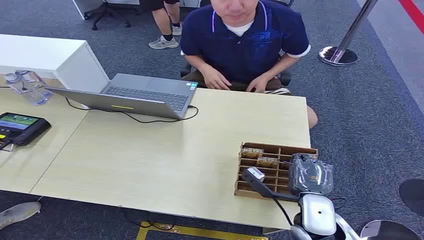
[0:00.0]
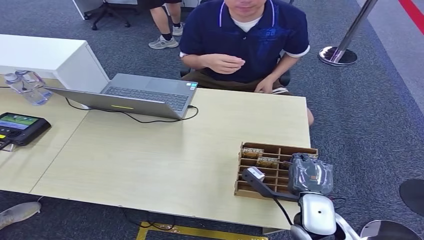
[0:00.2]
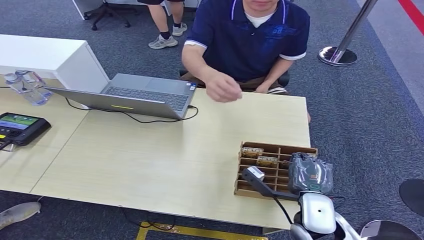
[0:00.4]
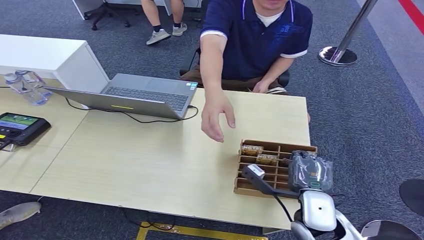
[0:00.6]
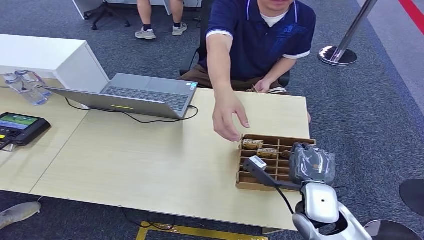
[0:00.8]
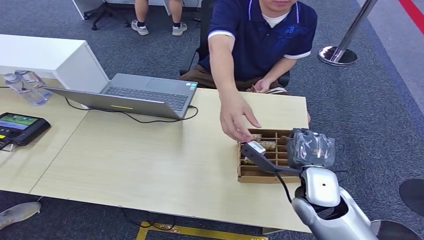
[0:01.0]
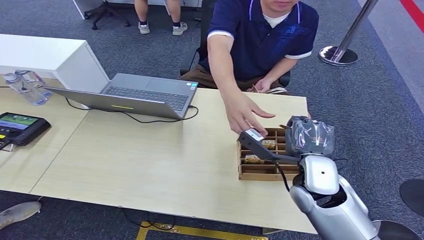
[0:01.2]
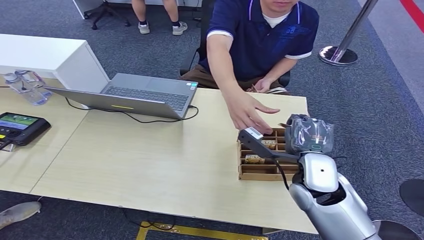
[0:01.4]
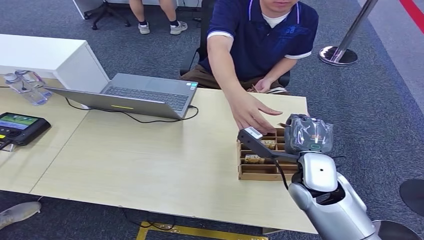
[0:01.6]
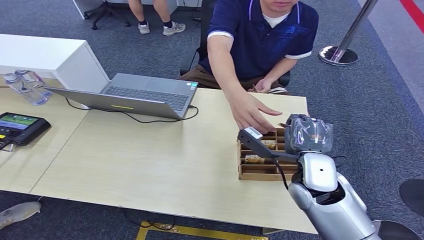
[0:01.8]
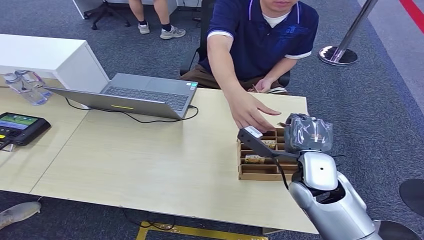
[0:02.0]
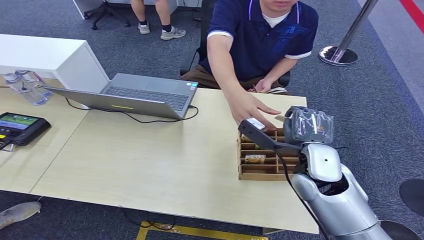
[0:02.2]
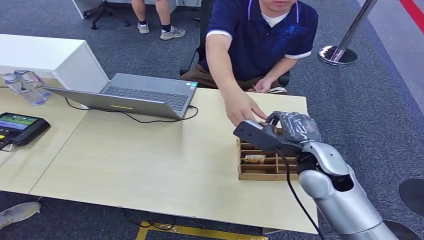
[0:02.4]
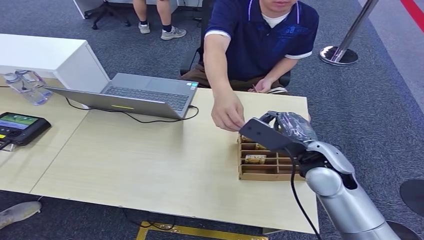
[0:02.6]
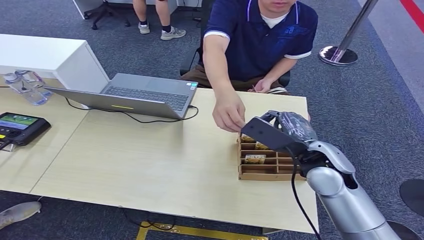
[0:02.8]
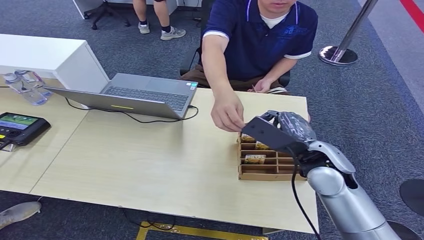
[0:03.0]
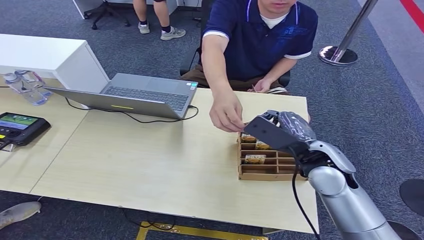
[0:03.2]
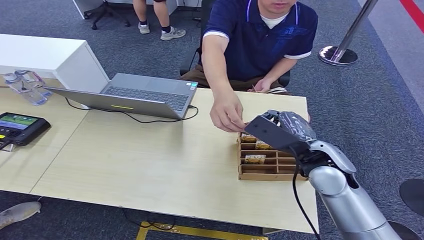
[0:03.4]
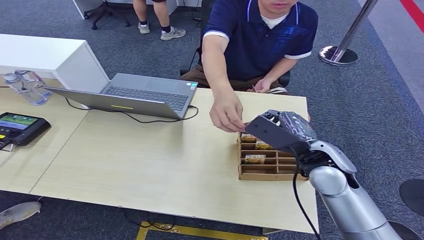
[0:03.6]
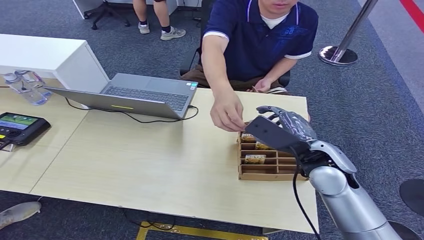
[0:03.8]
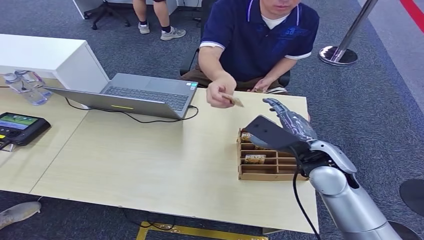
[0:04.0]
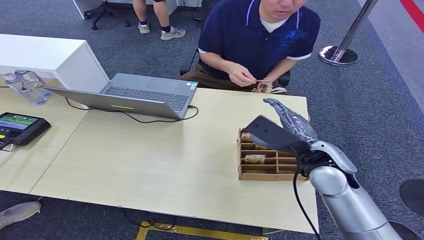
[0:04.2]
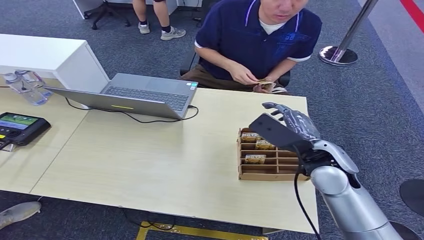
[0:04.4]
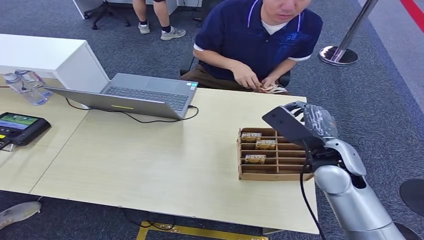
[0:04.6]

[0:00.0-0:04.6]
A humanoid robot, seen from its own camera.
Step, 0:00.0 to 0:01.4: Pick up the room card from the card holder.
Step, 0:01.6 to 0:04.6: Hand the room card to the target.
0:03.0 to 0:04.6: The hands stay close to where they were, moving slightly.
